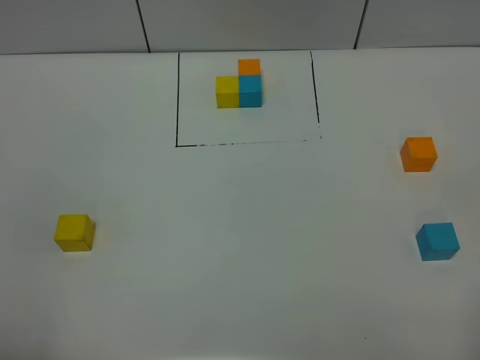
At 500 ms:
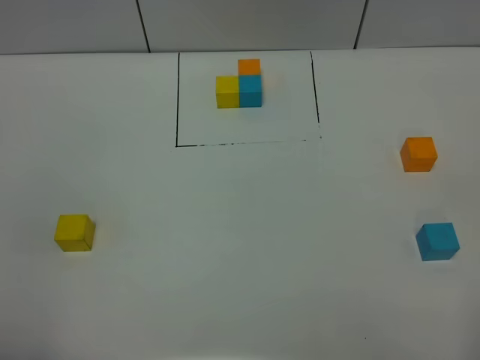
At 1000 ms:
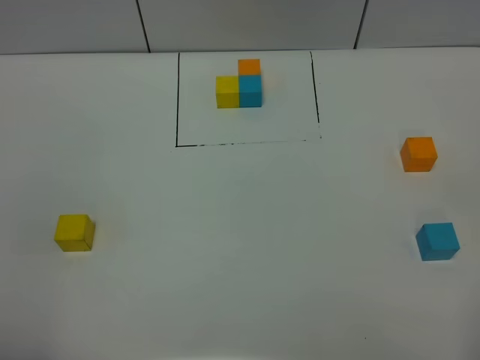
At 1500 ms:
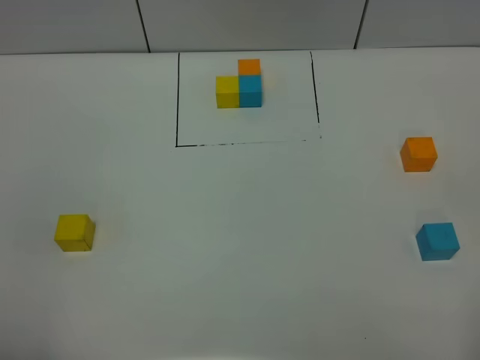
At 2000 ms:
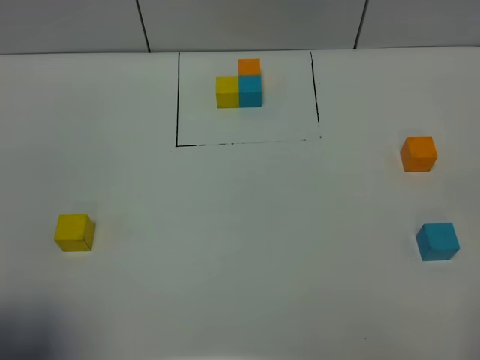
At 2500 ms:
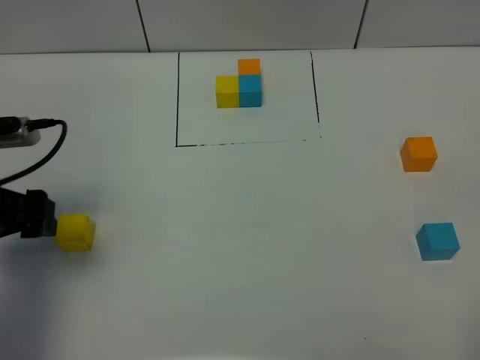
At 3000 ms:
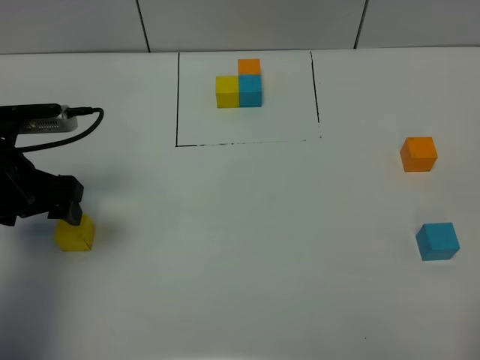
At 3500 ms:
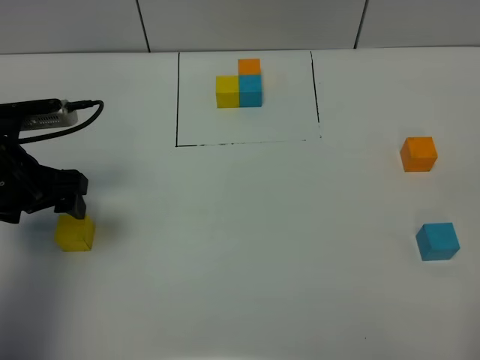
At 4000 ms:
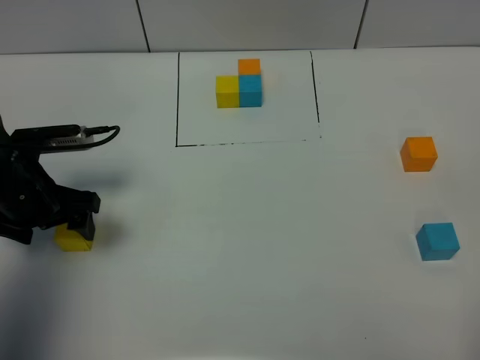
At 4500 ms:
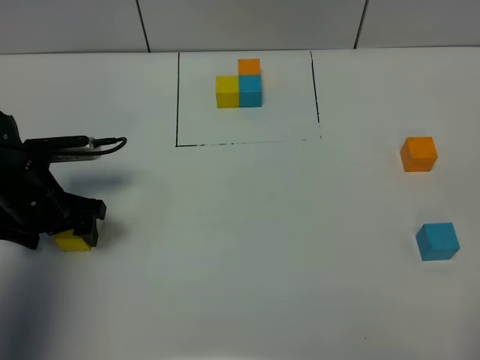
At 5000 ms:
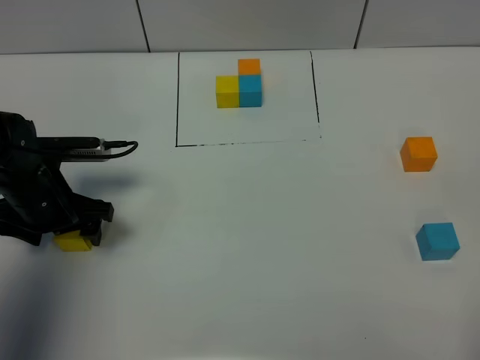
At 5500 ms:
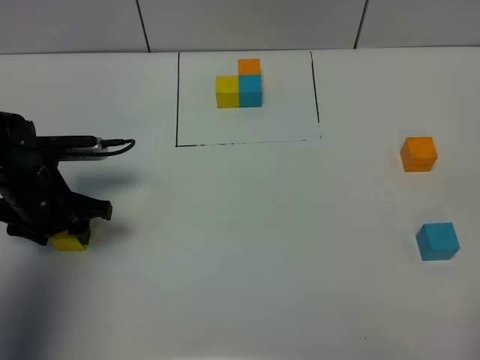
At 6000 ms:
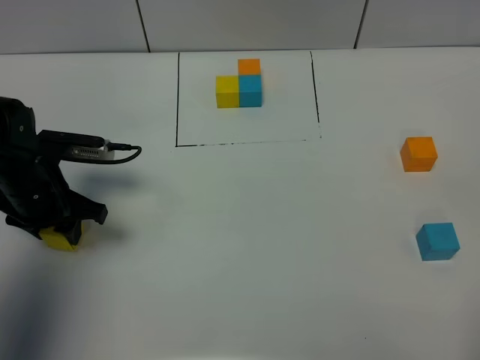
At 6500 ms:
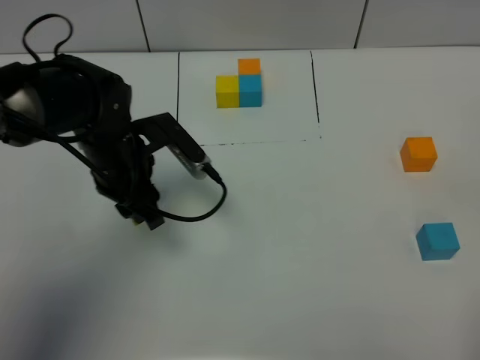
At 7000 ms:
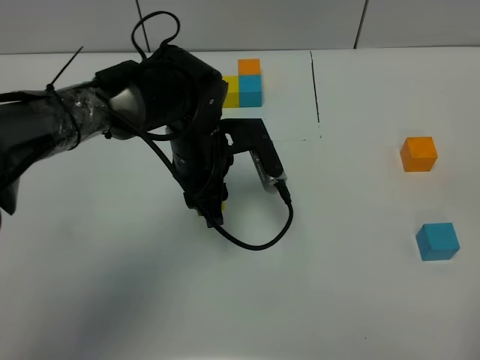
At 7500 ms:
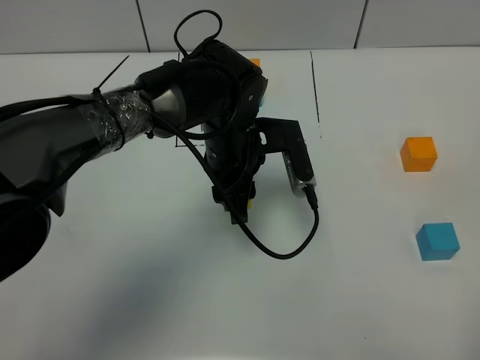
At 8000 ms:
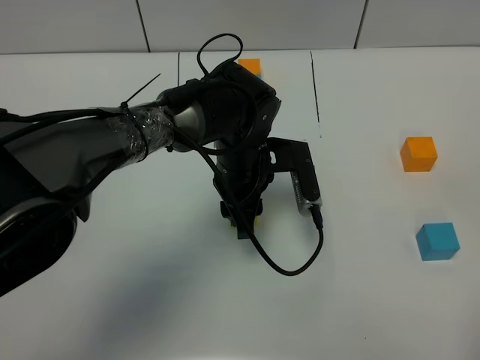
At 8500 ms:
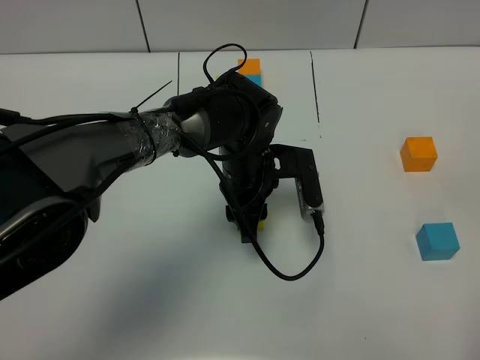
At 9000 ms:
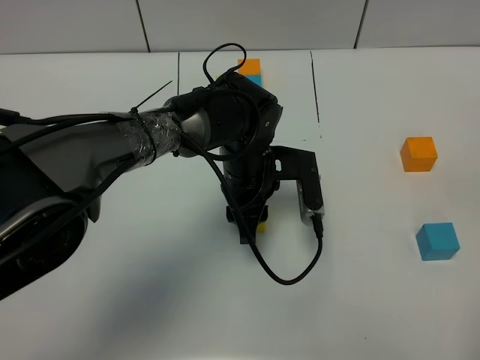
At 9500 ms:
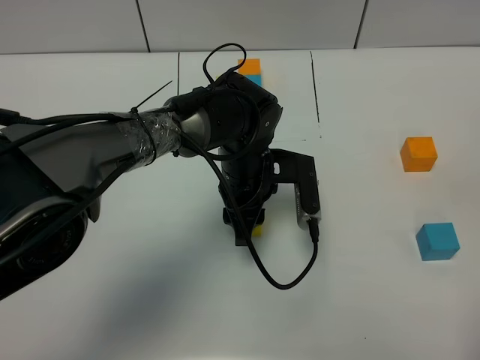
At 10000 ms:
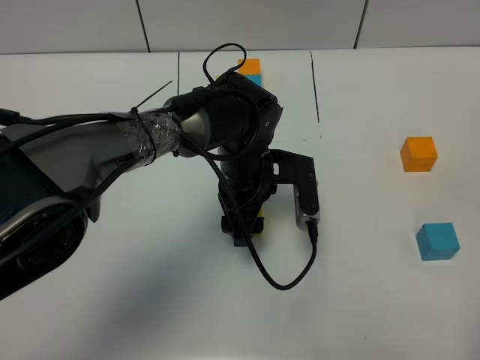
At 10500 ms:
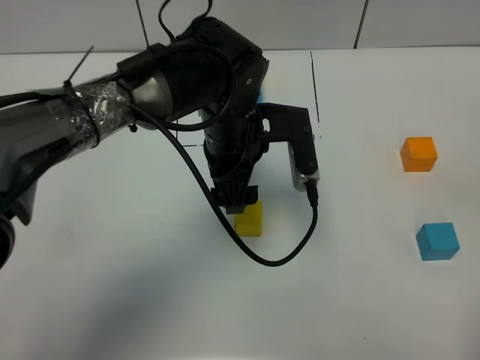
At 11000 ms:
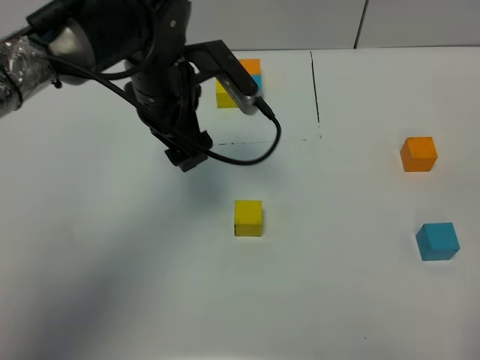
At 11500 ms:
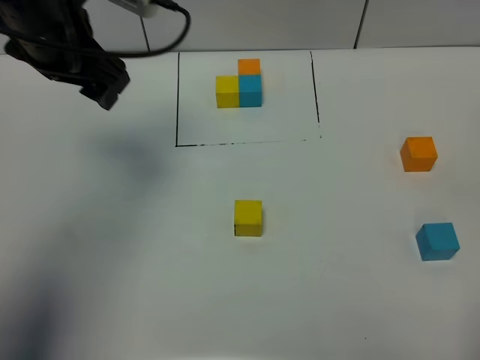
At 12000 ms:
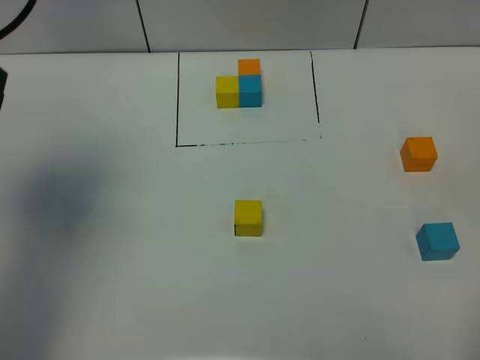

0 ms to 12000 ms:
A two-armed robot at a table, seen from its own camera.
Task of the whole recording: According to the building block template in front, assemble the scattered blocks together.
Step, 0 ms to 9500 ms: Put the yellow build block in the center of the table.
0 ms to 2000 ms: The left gripper goes some 5 cm forward.
2000 ms to 4000 ms: The left gripper moves forward and downward, some 25 cm.
4000 ms to 6000 ms: The left gripper closes.
6000 ms to 8000 ms: The left gripper goes roughly 25 cm to the right.
8000 ms to 10000 ms: The left gripper opens up.
10000 ms to 12000 ms: The left gripper goes about 40 cm to the left and upward.

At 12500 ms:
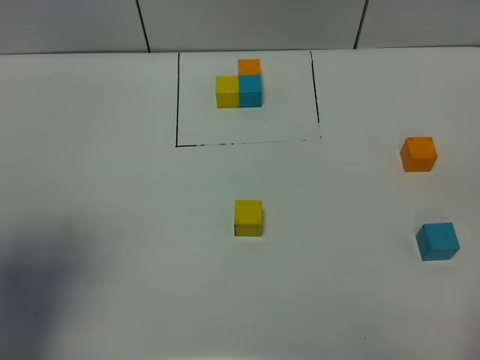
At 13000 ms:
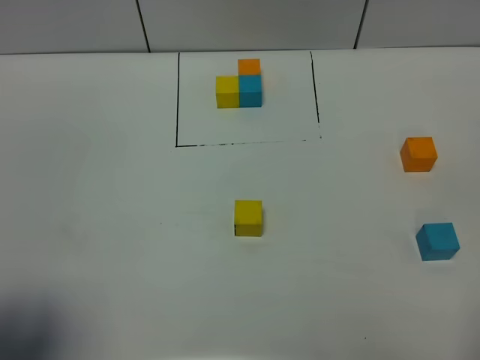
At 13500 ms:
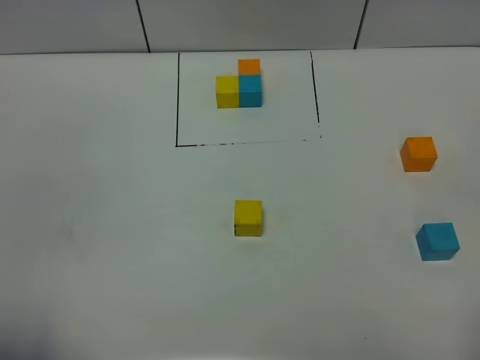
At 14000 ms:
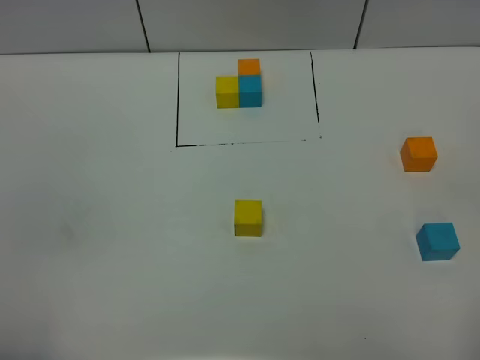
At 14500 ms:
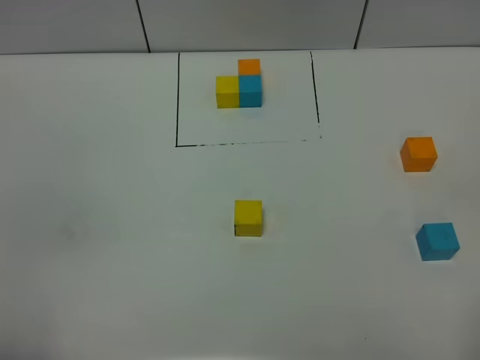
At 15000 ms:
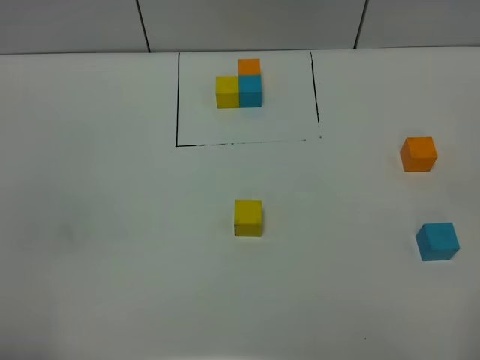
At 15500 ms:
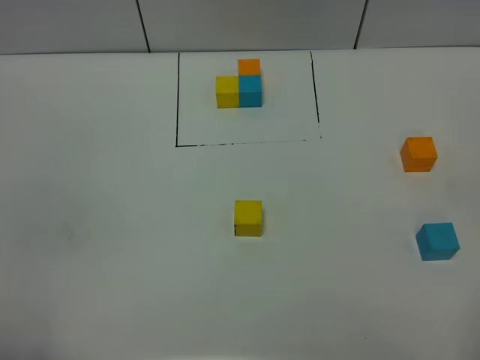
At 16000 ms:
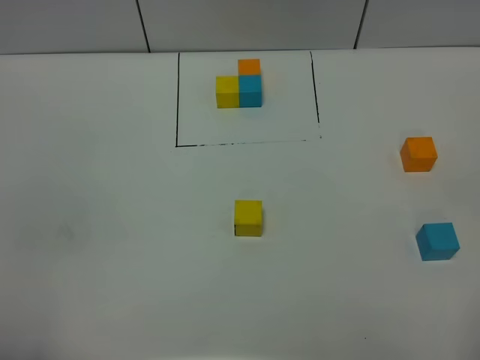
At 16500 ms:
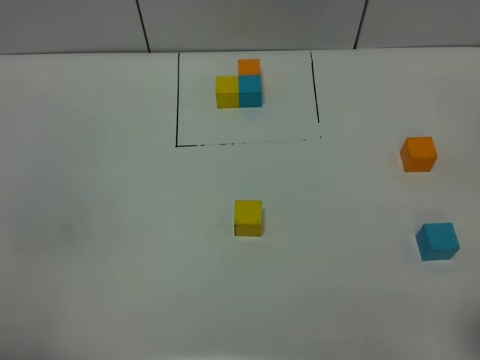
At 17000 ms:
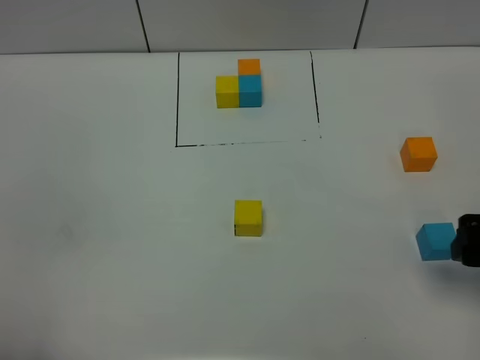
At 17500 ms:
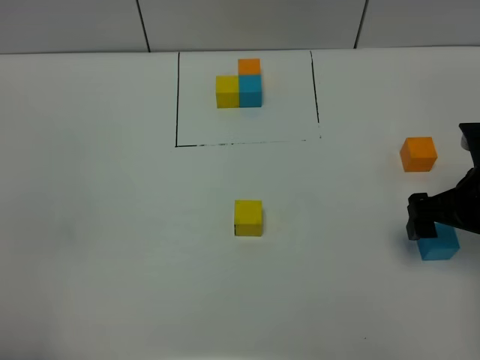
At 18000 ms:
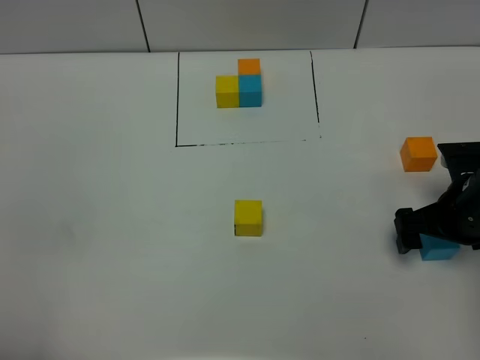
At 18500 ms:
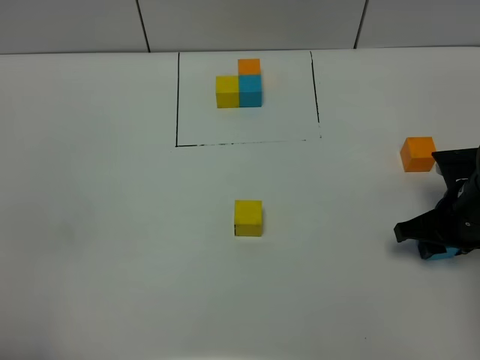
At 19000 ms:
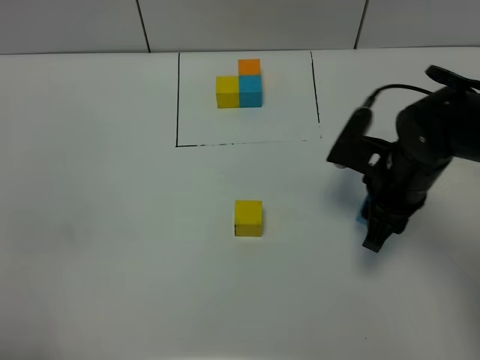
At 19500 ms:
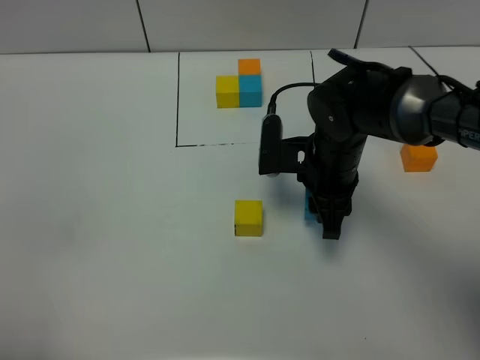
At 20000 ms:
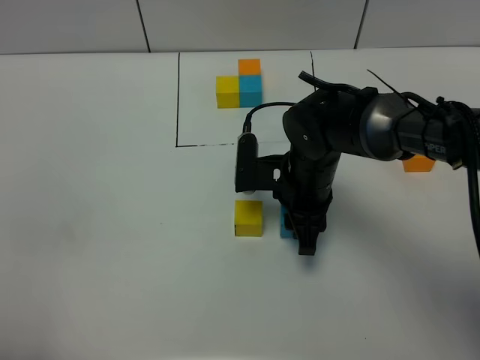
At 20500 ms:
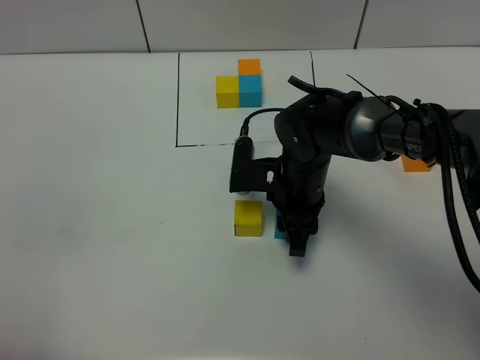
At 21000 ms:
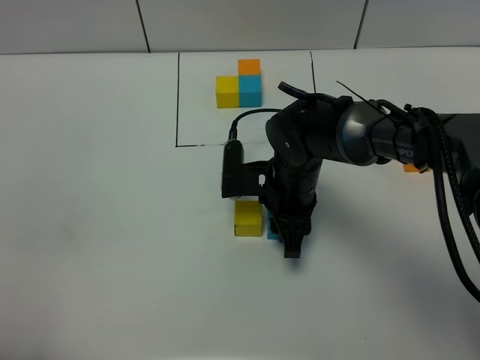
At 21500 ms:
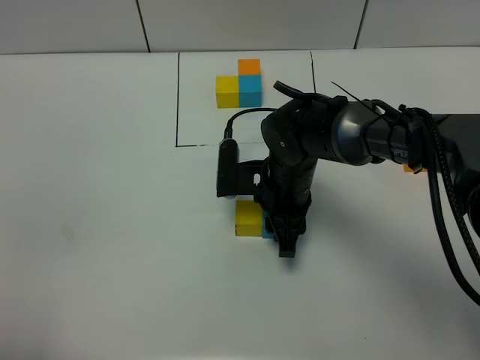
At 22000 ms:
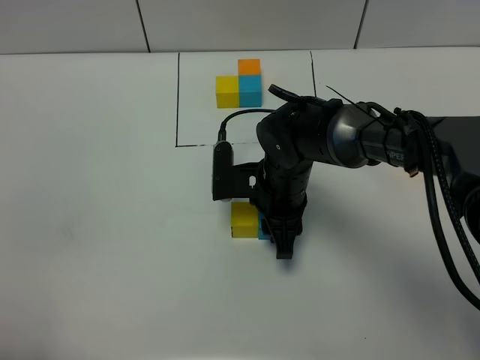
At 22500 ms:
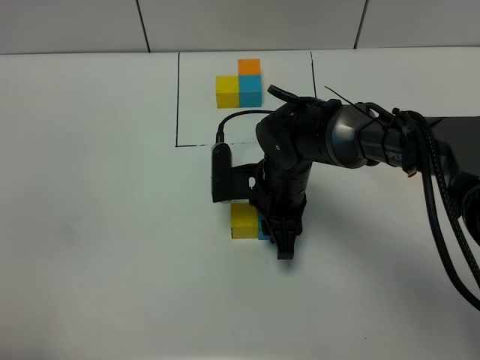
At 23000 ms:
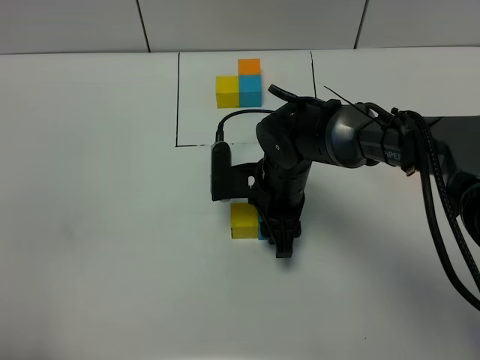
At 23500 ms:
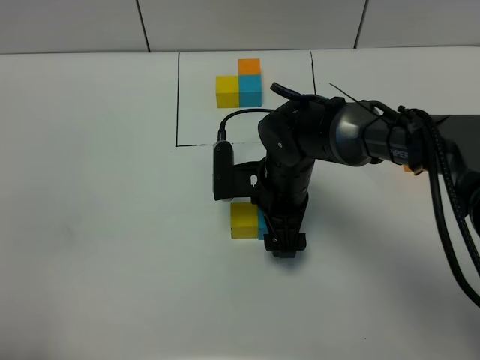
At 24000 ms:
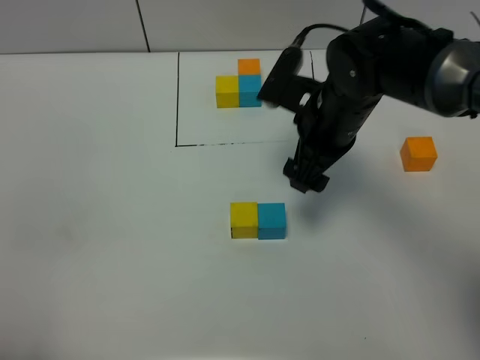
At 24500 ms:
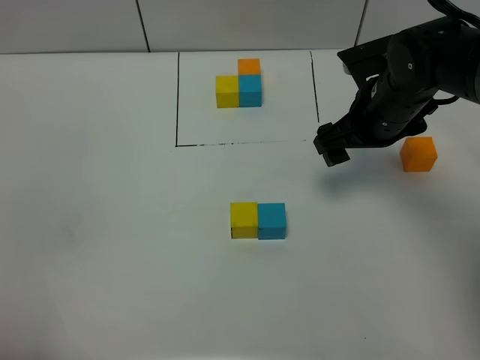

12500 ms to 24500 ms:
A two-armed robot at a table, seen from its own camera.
Task of the whole recording: According to the building block template in front, assemble the scattered blocks together.
Step, 12500 ms to 23000 ms: Put the blue build block on the right of the yellow build block.
12500 ms to 14500 ms: The left gripper heads backward and downward, covering some 15 cm.
16500 ms to 18500 ms: The right gripper is displaced forward and downward by roughly 25 cm, and closes.
18500 ms to 20500 ms: The right gripper goes approximately 20 cm to the left.
20500 ms to 22500 ms: The grippers make only small movements.
22500 ms to 24500 ms: The right gripper heads to the right and upward, covering roughly 15 cm, and opens up.

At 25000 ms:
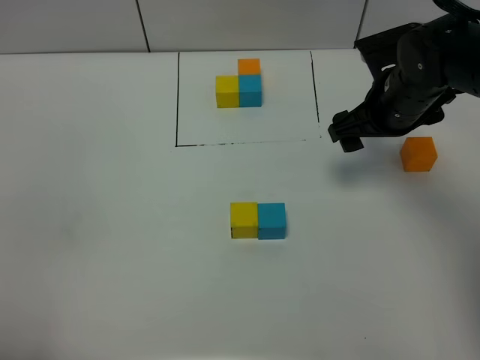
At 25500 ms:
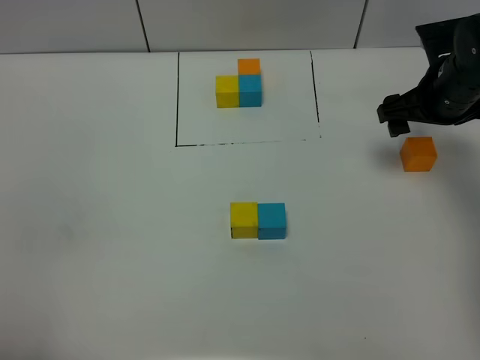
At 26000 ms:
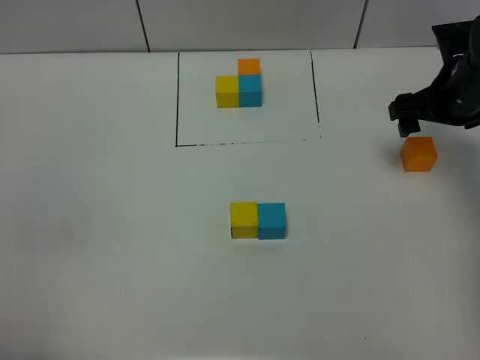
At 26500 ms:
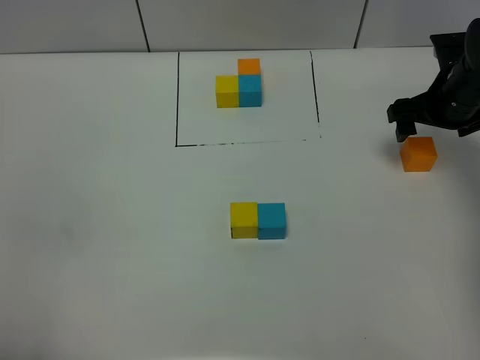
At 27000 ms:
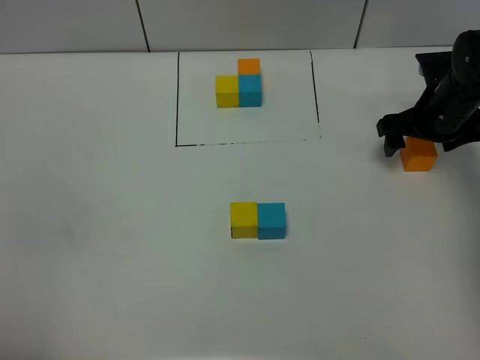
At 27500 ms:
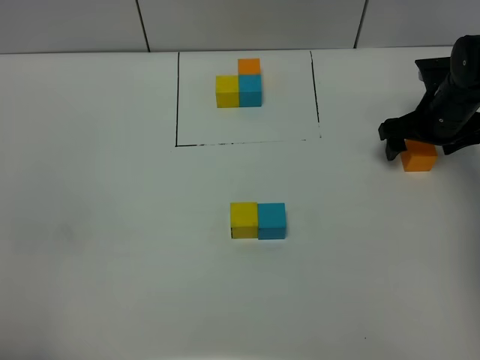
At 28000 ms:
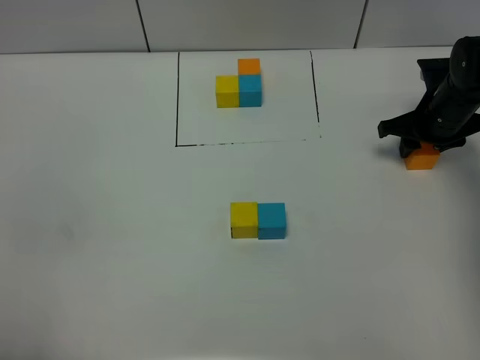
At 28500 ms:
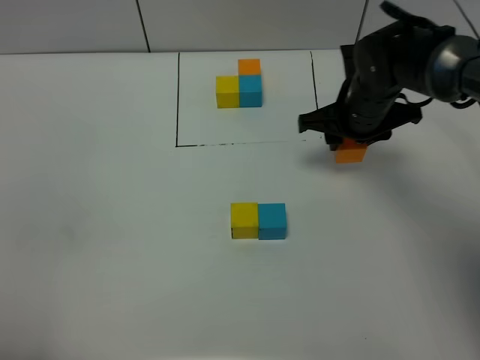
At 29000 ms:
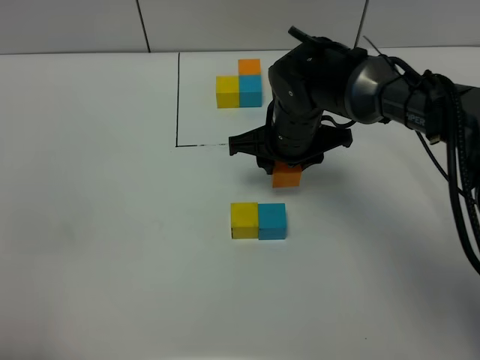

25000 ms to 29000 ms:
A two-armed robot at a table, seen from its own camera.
Task of the whole recording: According to the building block template in front, assemble the scattered blocks together.
25000 ms to 27000 ms: The right gripper heads to the right and downward, covering some 10 cm.
27000 ms to 29000 ms: The right gripper shifts some 20 cm to the left, and closes.
